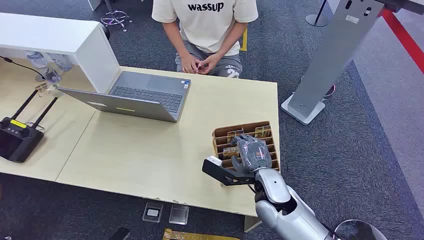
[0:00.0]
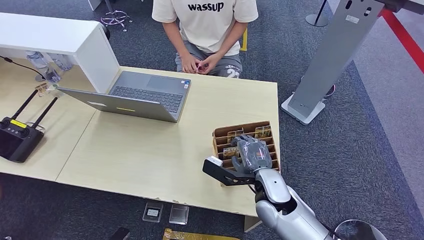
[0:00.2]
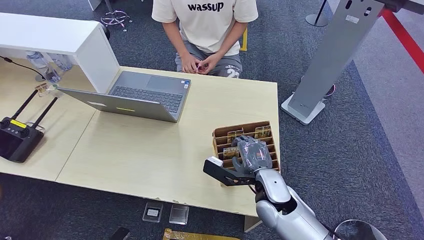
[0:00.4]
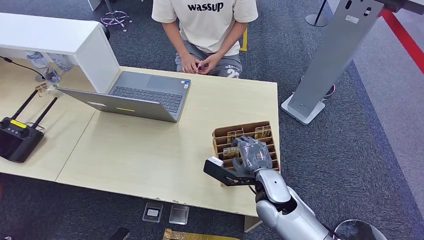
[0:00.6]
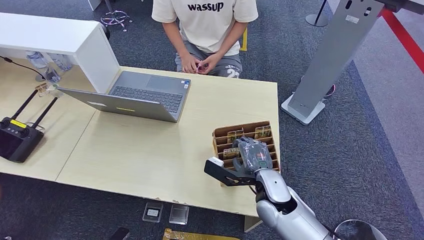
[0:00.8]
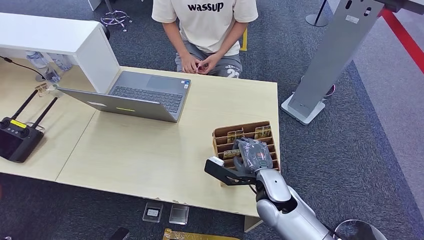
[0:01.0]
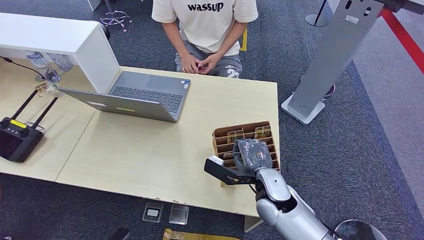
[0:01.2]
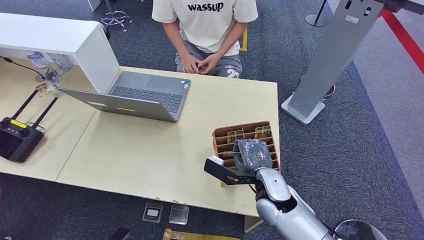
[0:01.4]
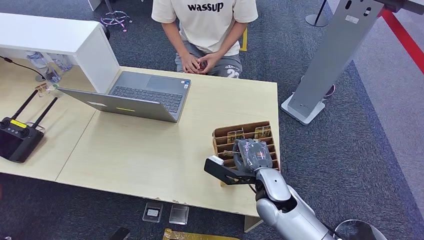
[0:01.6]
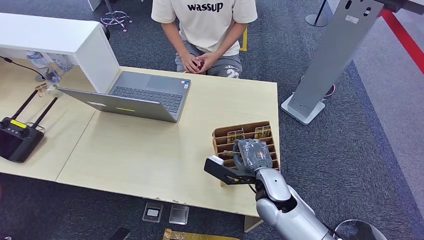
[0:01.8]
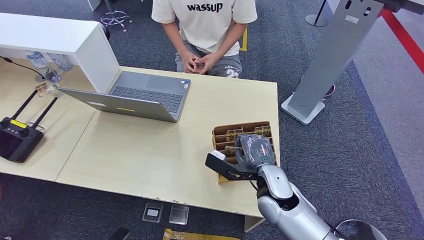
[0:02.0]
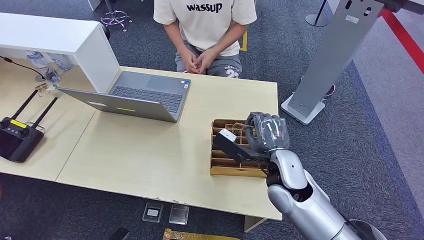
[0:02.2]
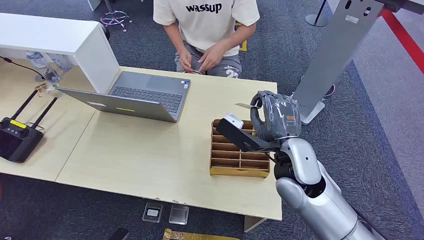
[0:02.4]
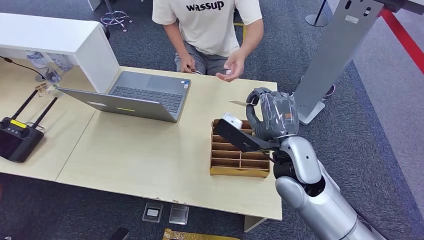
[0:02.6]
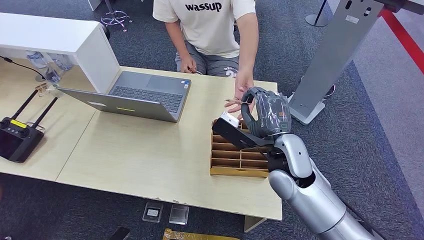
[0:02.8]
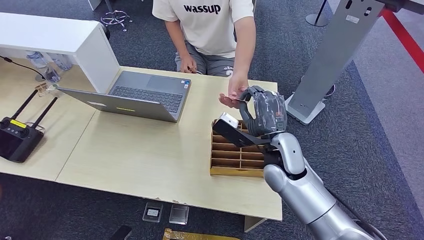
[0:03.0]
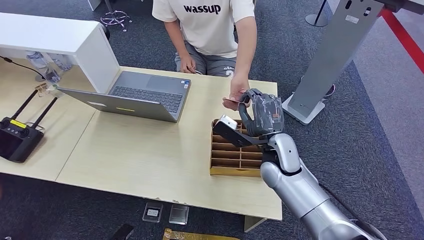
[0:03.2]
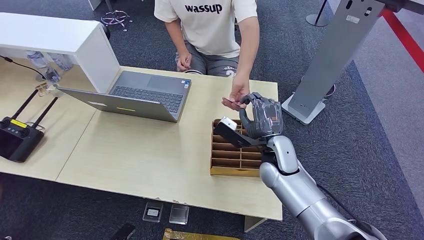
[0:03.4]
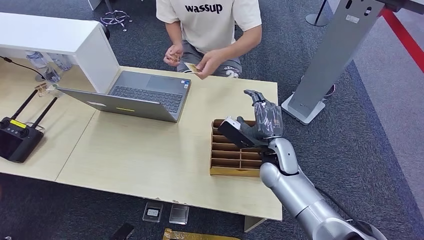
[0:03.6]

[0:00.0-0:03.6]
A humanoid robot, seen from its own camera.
Step, 0:00.0 to 0:02.0: Pick up the room card from the card holder.
Step, 0:02.8 to 0:03.6: Hand the room card to the target.
0:01.8 to 0:03.6: The right hand shifts approximately 10 cm forward, and moves roughly 10 cm upward and comes back.
